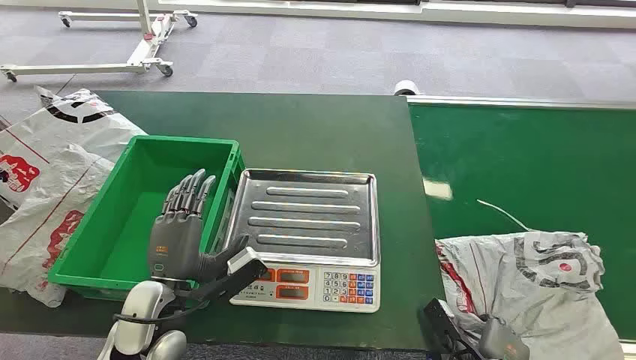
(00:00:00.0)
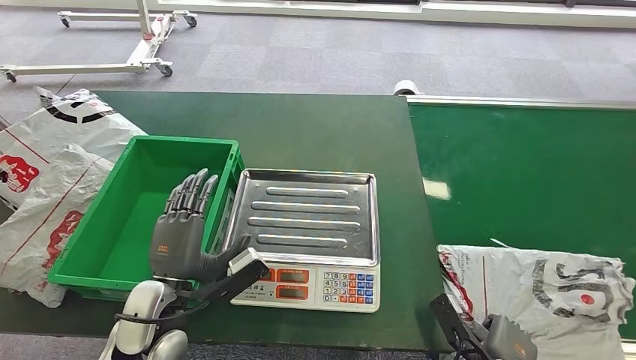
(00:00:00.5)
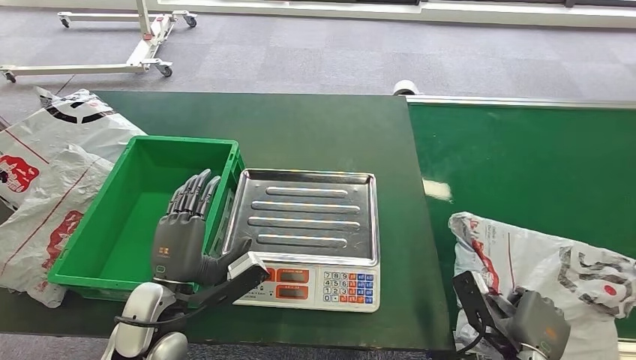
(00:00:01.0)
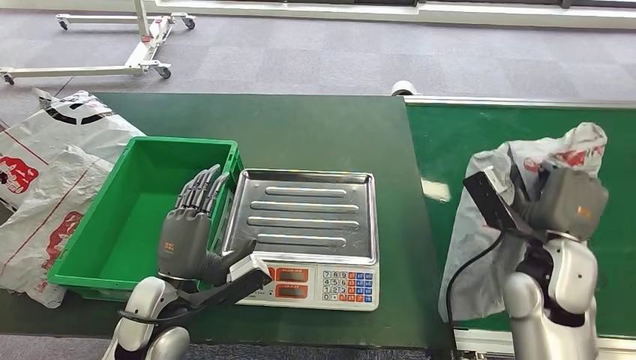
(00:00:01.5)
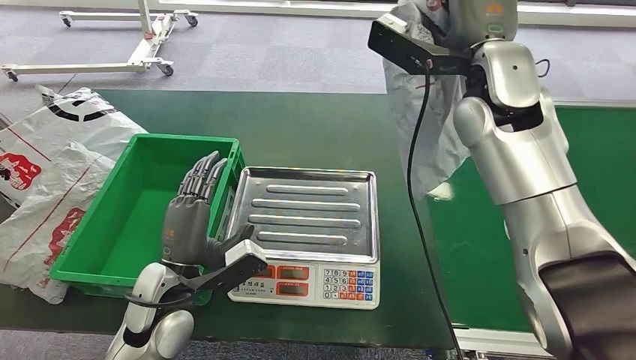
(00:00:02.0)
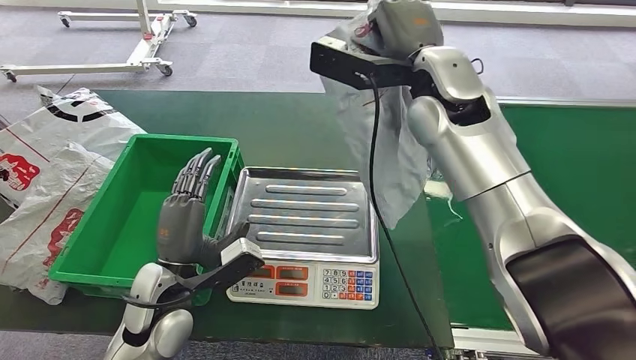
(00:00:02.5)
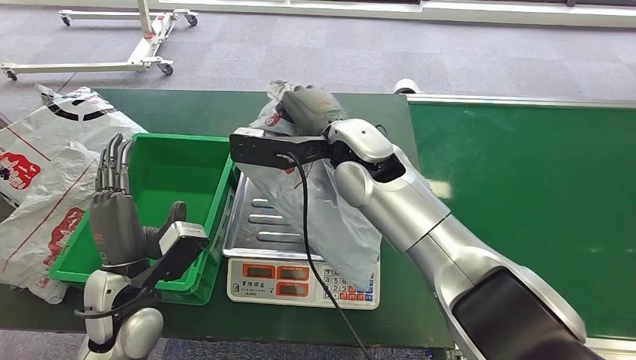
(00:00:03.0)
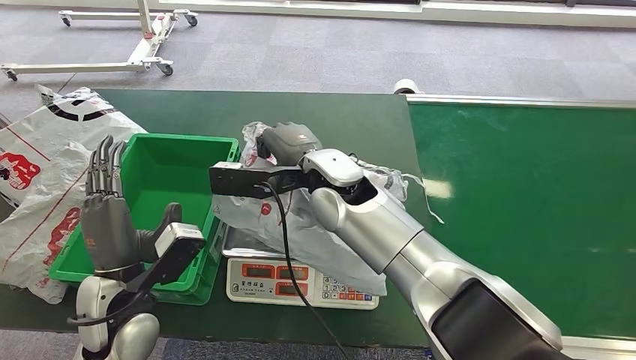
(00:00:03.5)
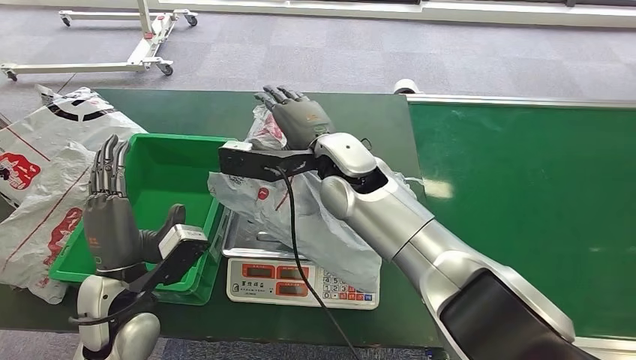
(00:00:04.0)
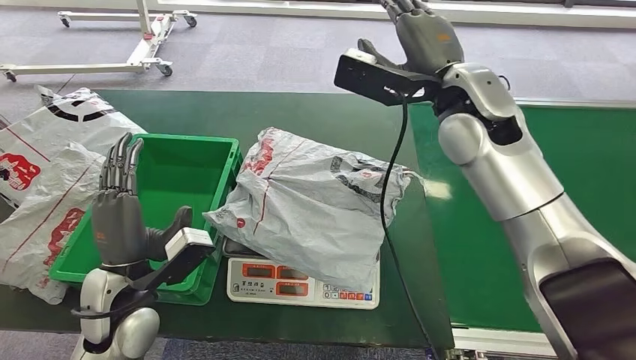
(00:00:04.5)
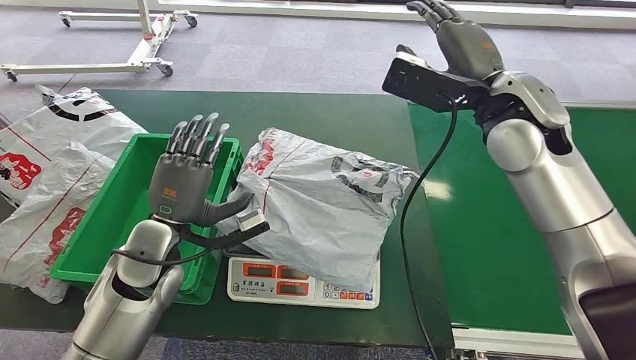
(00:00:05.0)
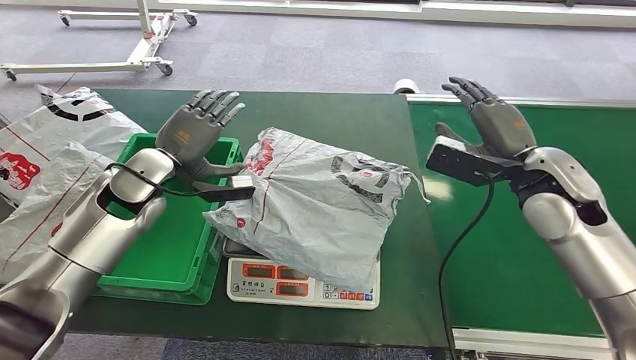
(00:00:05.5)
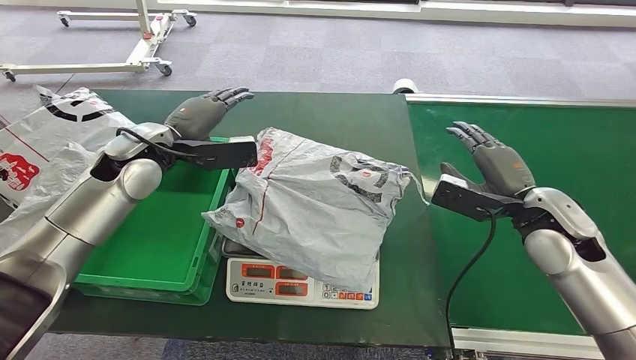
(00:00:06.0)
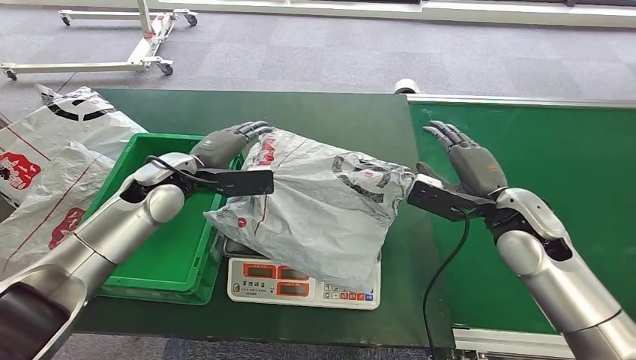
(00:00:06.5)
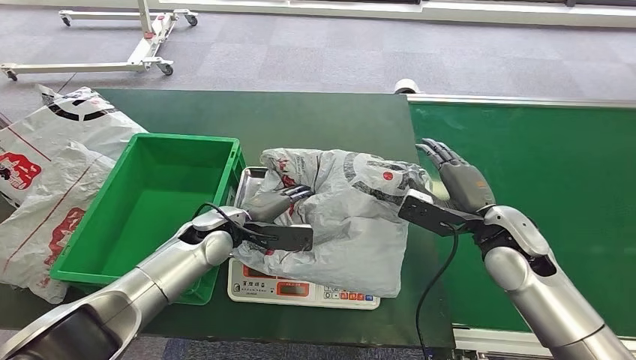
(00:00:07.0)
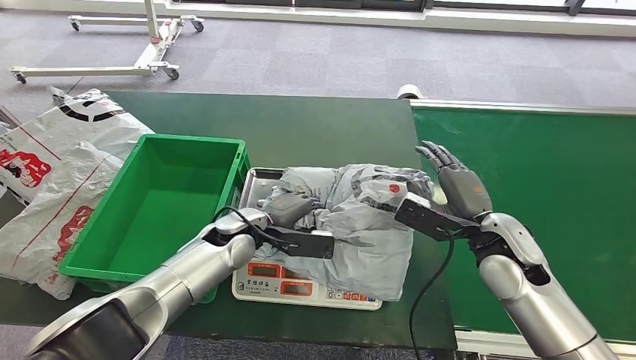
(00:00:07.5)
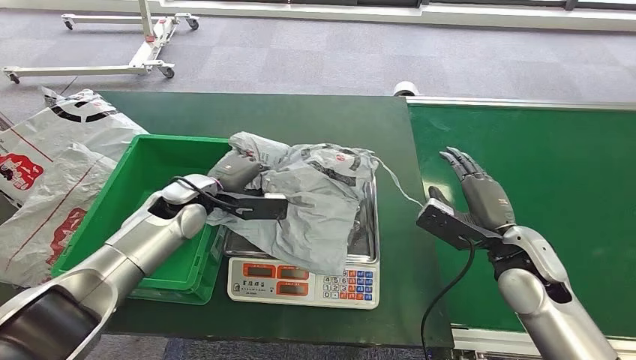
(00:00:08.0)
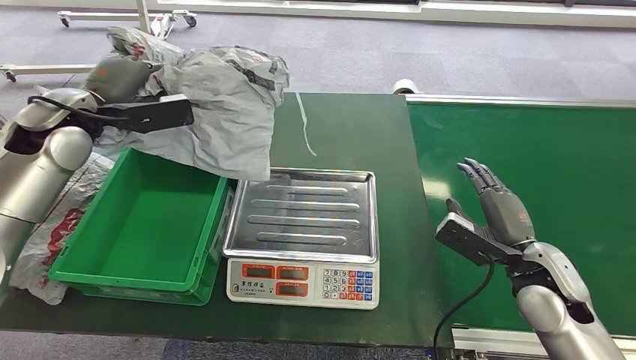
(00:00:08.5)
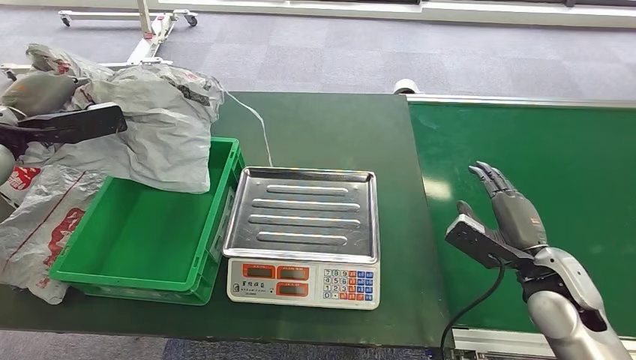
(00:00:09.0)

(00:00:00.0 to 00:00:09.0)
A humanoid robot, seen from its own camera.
Task of the whole recording: Weigh the package on the weighing device and place it in the left basket.
Step, 00:00:00.0 - 00:00:01.5: Pick up the package from the conveyor belt.
Step, 00:00:02.0 - 00:00:04.0: Place the package onto the inbound machine.
Step, 00:00:04.5 - 00:00:08.0: Pick up the package from the inbound machine.
Step, 00:00:08.5 - 00:00:09.0: Place the package into the parcel locker.

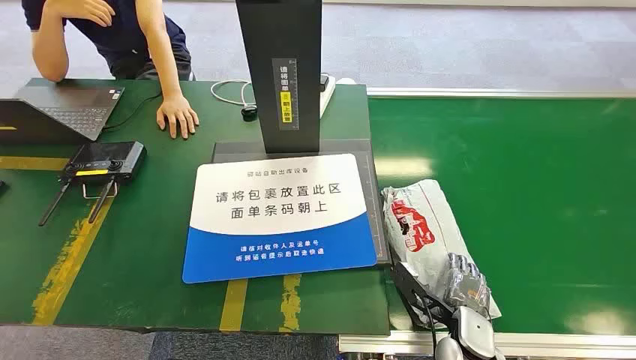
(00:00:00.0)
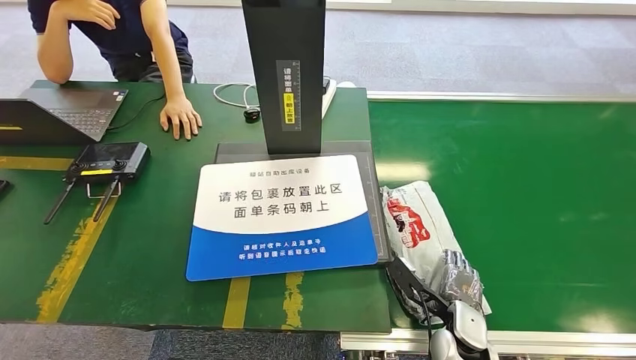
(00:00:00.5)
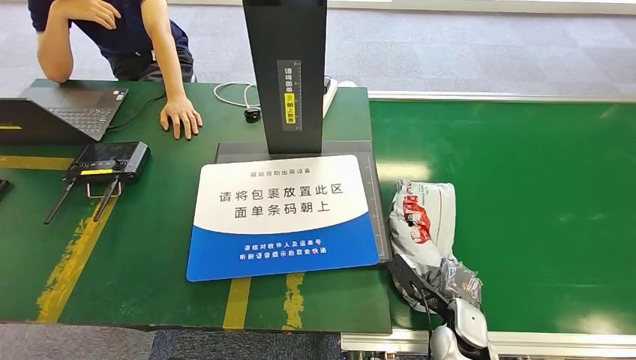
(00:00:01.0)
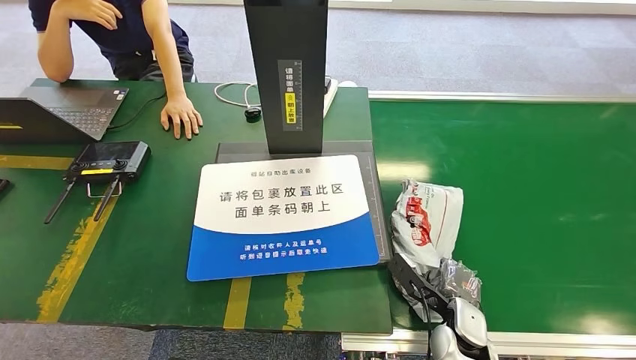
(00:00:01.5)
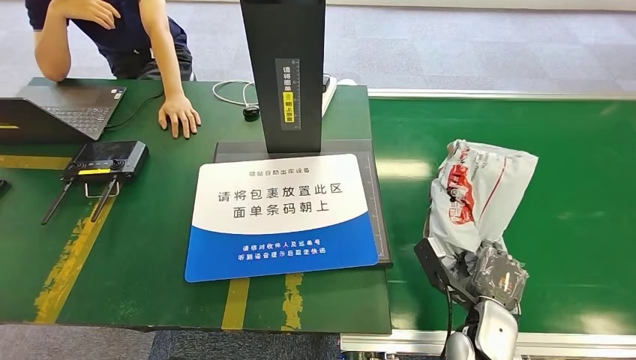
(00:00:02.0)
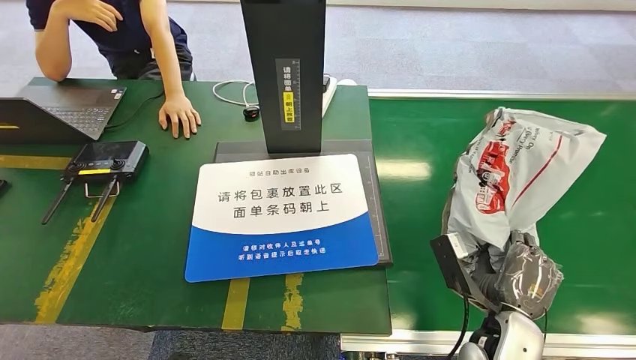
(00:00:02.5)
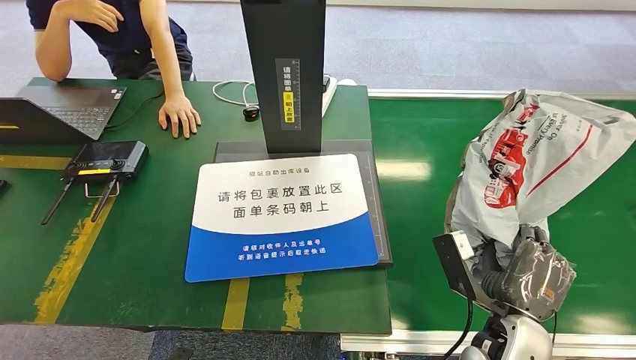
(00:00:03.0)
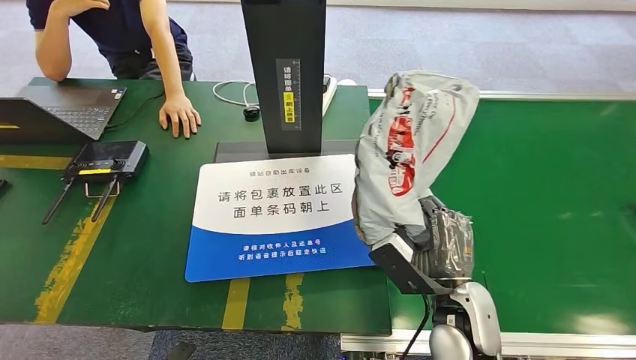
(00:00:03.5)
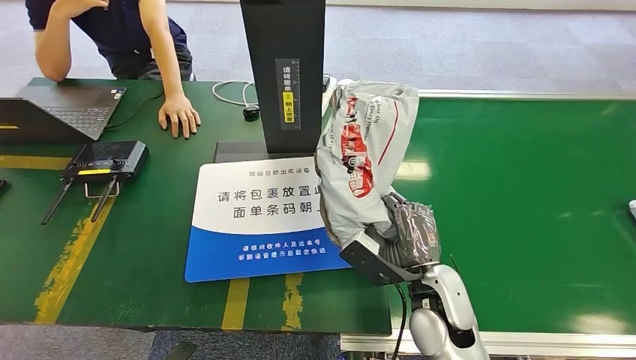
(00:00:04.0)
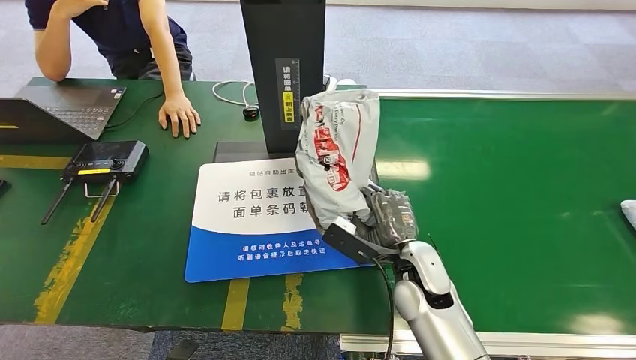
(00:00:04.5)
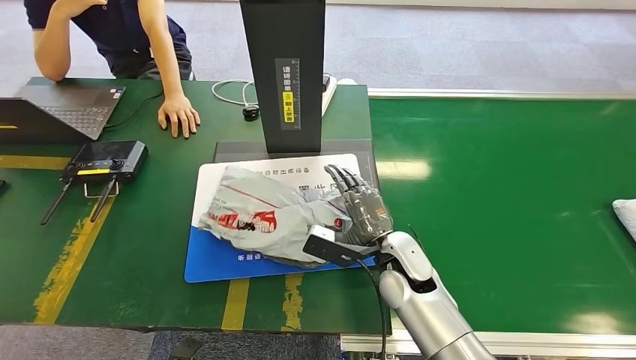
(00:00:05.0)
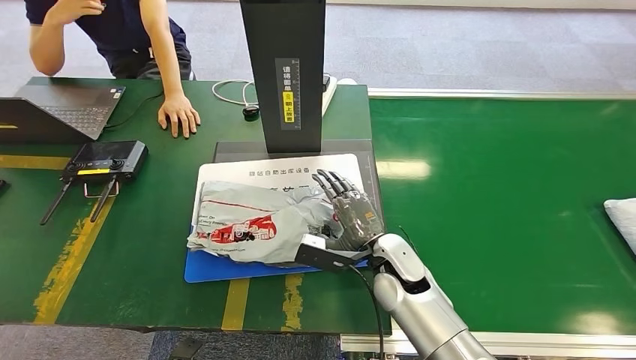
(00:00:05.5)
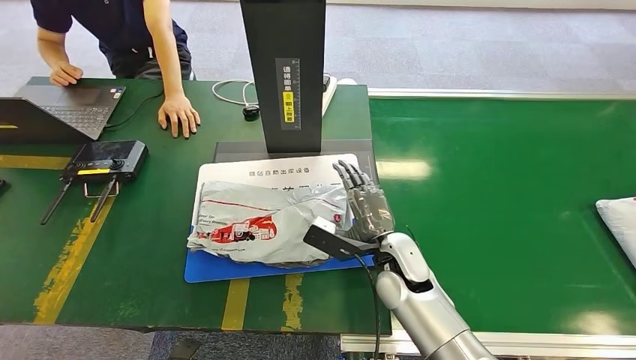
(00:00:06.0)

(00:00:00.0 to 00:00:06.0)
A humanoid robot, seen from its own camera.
Task of the whole recording: Weigh the package on the weighing device and place it in the left basket.
Step, 00:00:00.0 - 00:00:02.0: Pick up the package from the conveyor belt.
Step, 00:00:02.5 - 00:00:06.0: Place the package onto the inbound machine.
00:00:02.0 - 00:00:04.0: The right hand goes roughly 10 cm to the left and upward.
00:00:04.0 - 00:00:06.0: The right hand goes roughly 5 cm forward.
